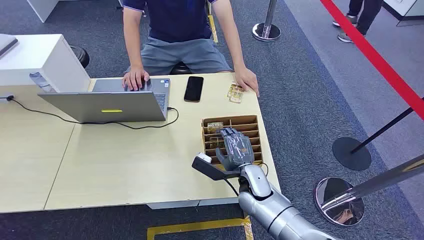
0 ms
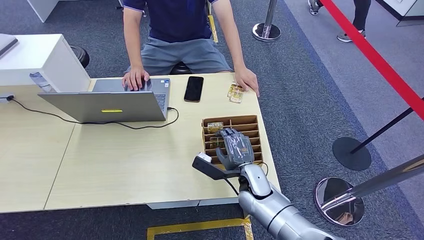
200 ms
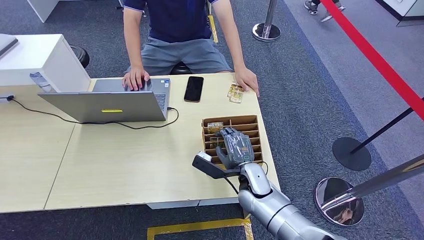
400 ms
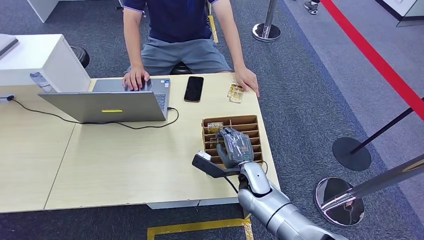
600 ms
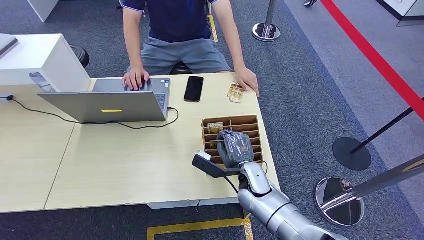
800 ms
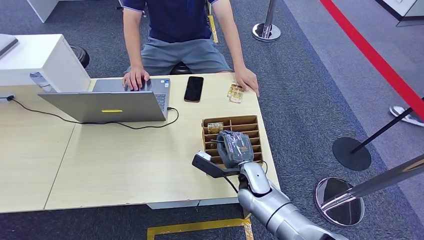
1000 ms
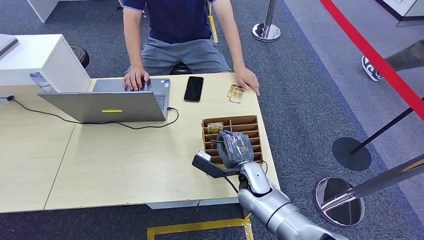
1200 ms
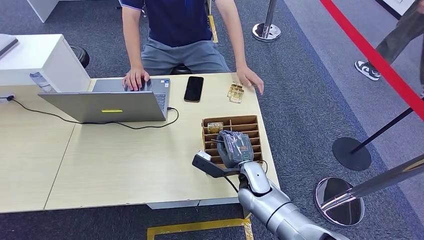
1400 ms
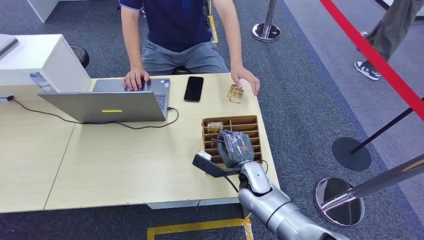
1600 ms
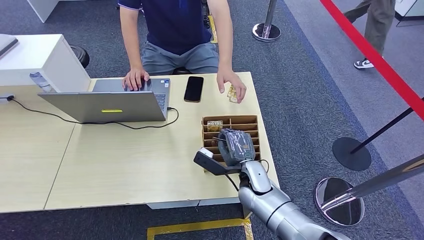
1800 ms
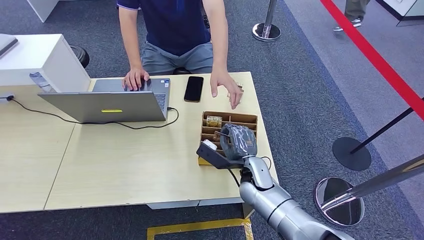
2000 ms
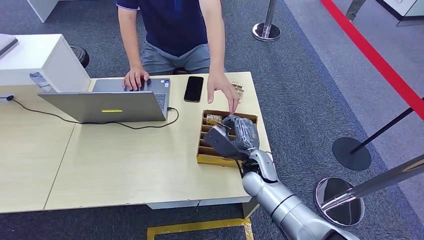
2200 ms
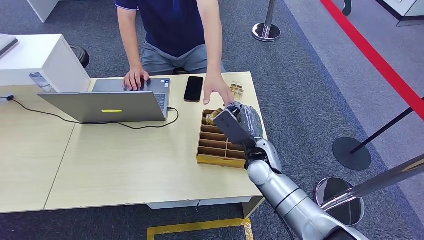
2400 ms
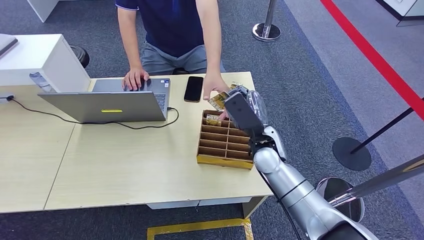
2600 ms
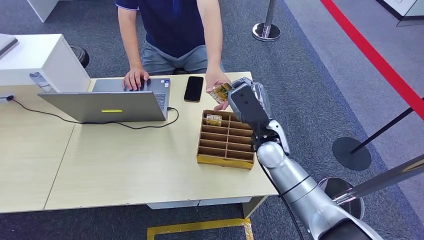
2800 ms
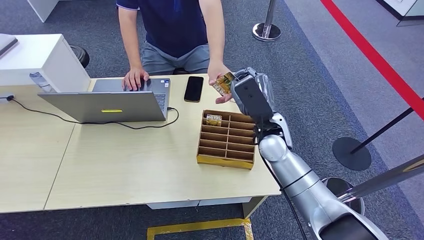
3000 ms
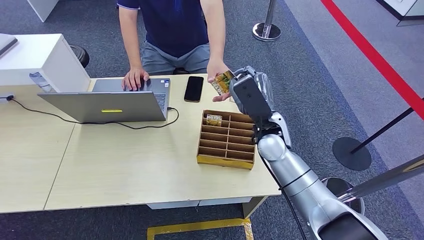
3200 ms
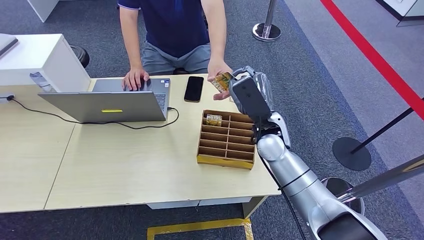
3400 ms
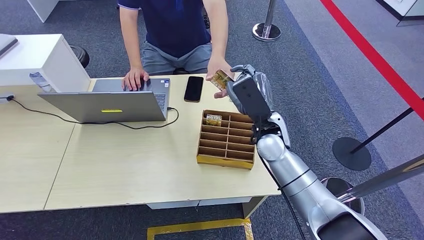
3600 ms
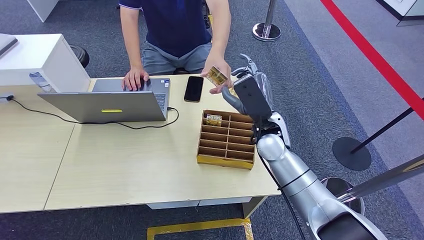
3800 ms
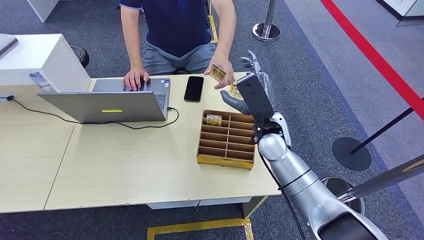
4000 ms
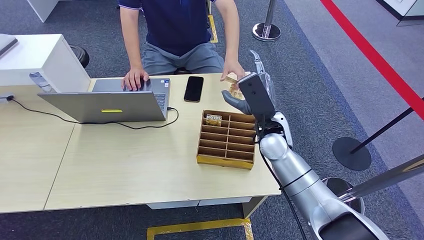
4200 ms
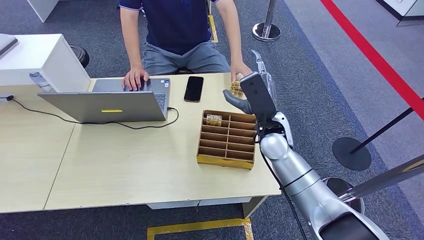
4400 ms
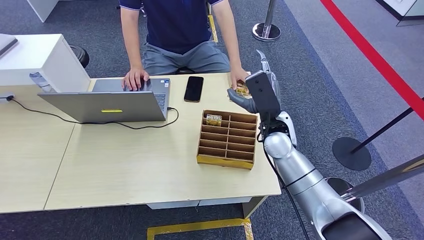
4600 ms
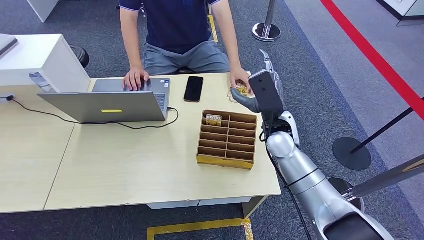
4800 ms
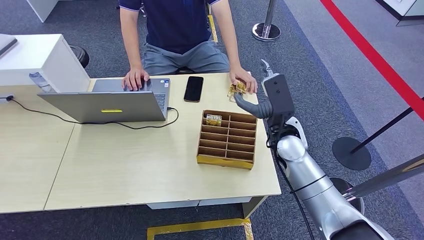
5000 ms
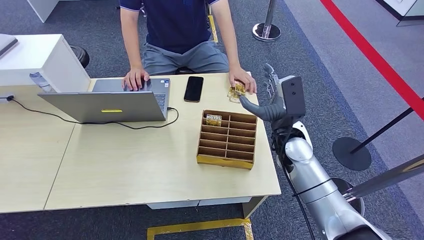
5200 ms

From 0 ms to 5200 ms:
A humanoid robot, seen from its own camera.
Step, from 0 ms to 3000 ms: Pick up the key card from the card box.
Step, from 3200 ms to 5200 ms: Hand the key card to the target.
From 1800 ms to 3400 ms: The right hand heads upward and forward, covering approximately 15 cm.
From 3400 ms to 5200 ms: The right hand travels to the right by approximately 5 cm.

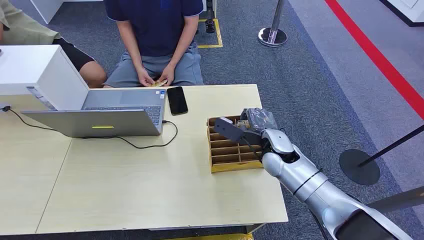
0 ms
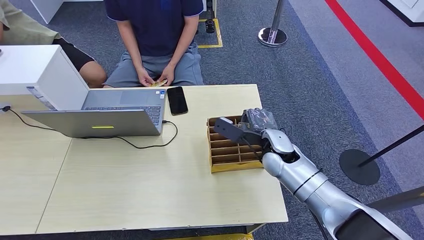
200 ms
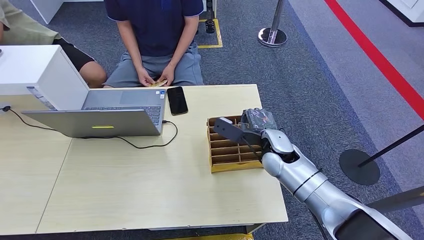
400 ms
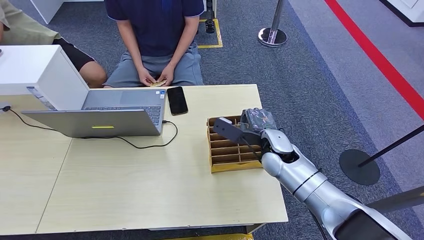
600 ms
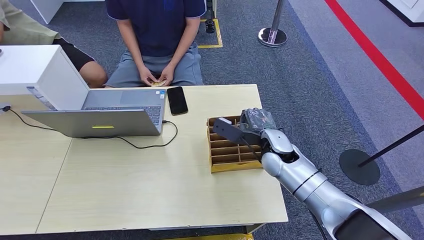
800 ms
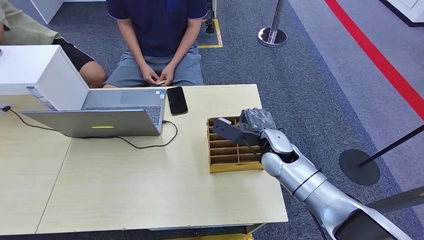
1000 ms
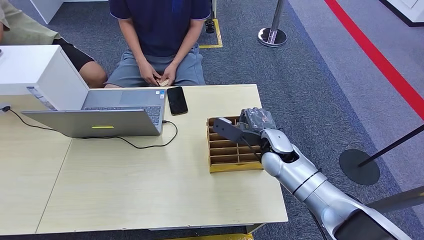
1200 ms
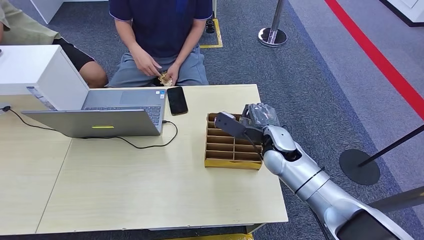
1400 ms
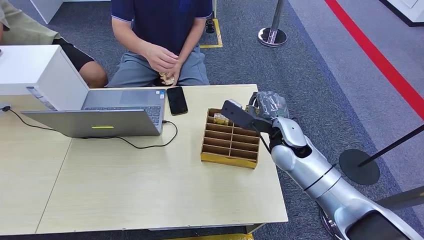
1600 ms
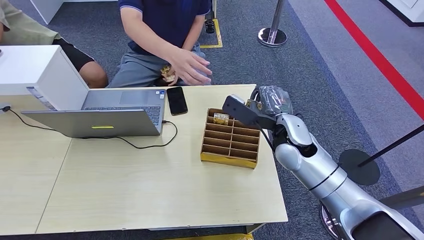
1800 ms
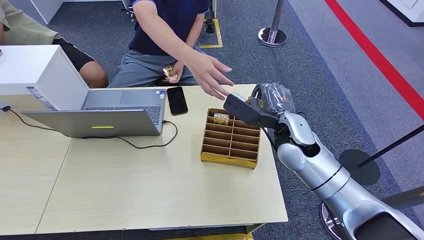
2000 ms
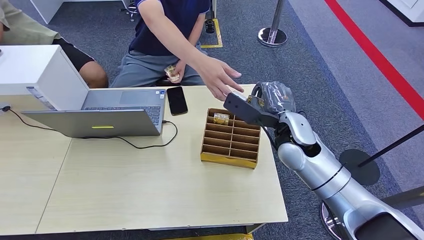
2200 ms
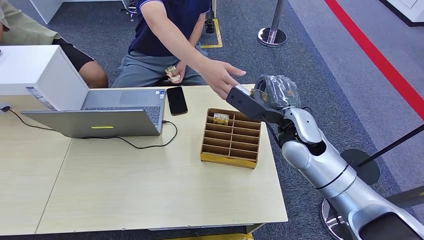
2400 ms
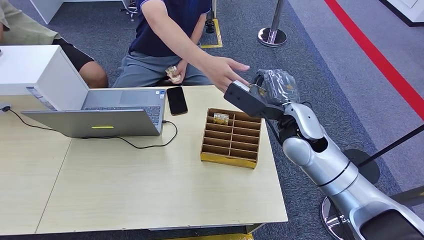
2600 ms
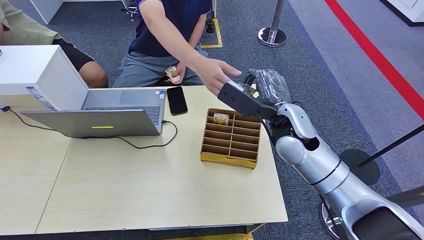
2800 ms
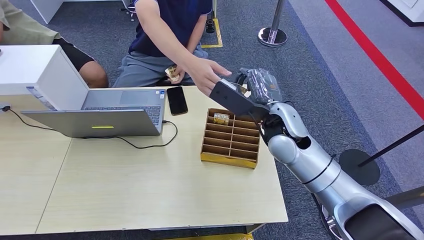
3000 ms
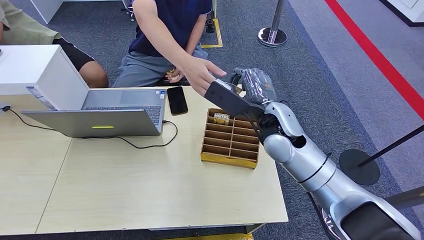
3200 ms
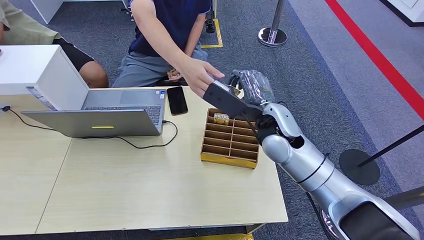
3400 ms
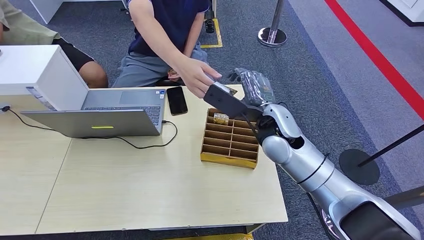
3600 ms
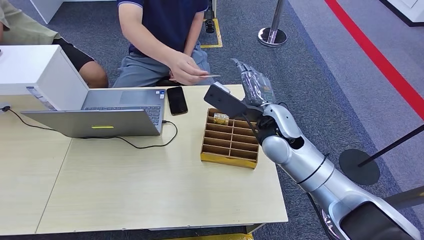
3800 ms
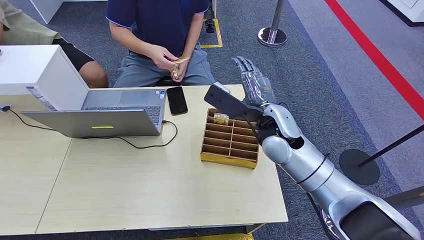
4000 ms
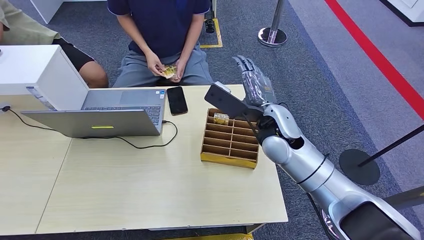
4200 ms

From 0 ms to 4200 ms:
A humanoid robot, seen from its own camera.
Step, from 0 ms to 2400 ms: Pick up the key card from the card box.
Step, from 2600 ms to 4200 ms: Hand the key card to the target.
From 1400 ms to 2800 ms: The right hand is displaced upward by approximately 10 cm.
From 2800 ms to 4200 ms: The hands stay close to where they were, moving slightly.
